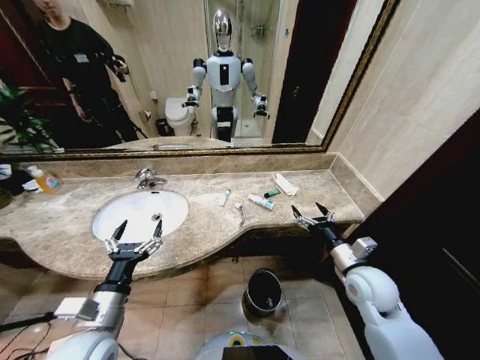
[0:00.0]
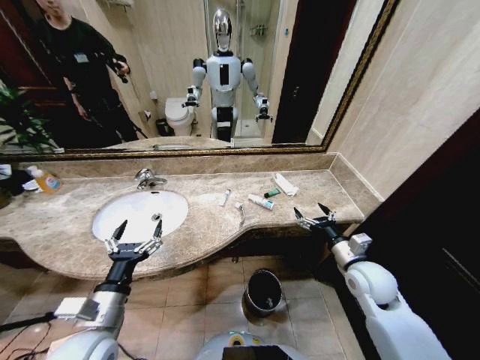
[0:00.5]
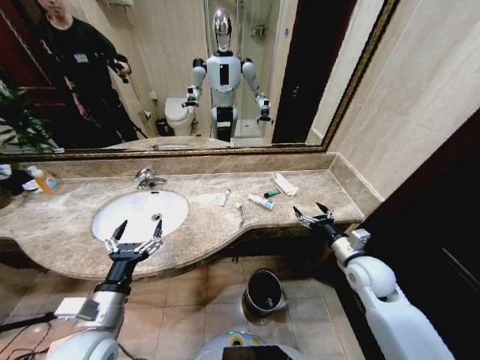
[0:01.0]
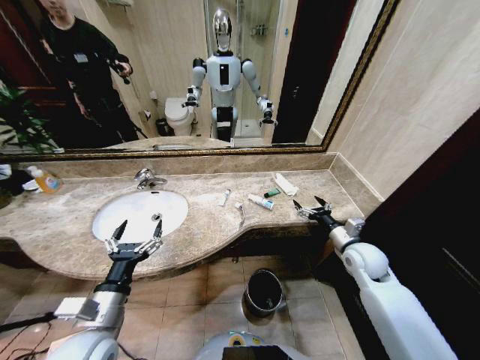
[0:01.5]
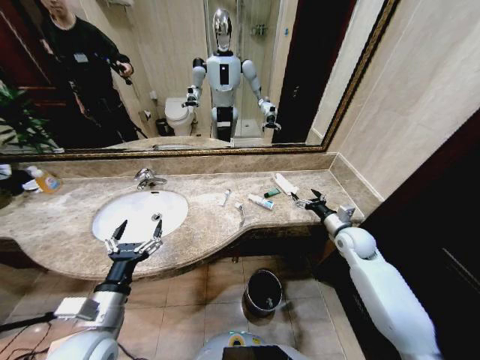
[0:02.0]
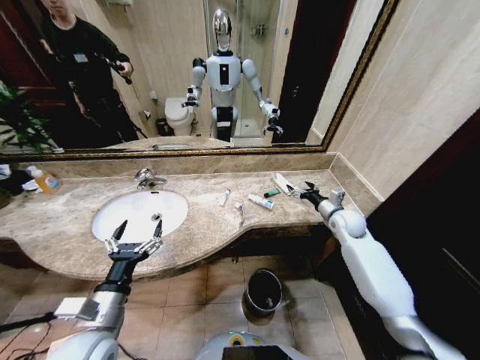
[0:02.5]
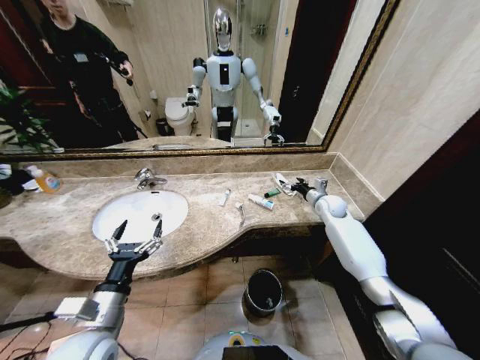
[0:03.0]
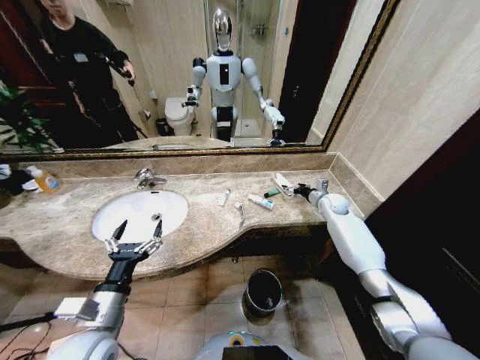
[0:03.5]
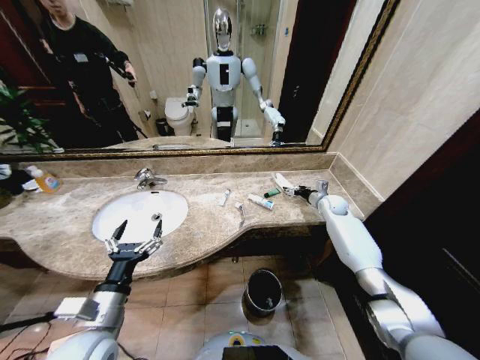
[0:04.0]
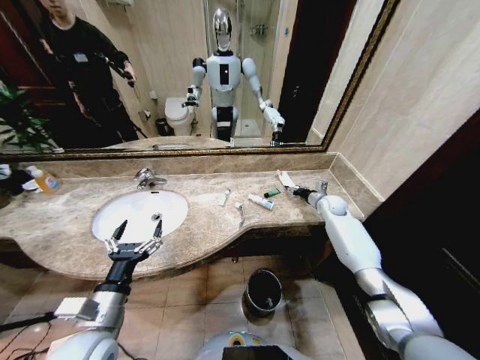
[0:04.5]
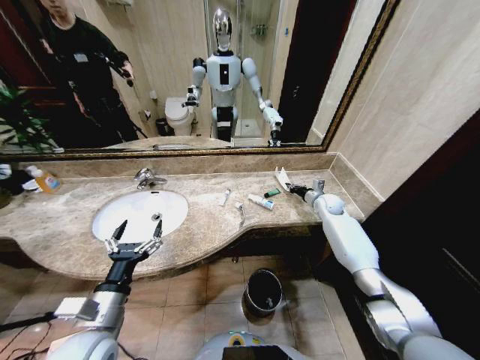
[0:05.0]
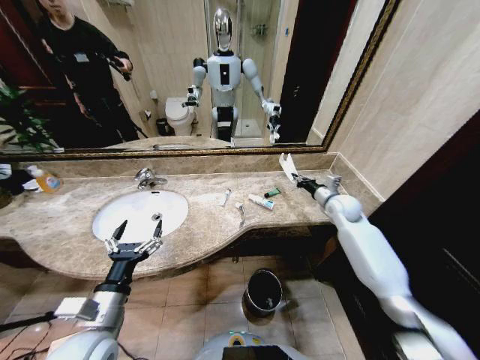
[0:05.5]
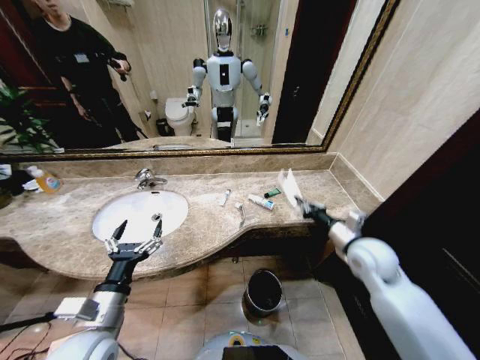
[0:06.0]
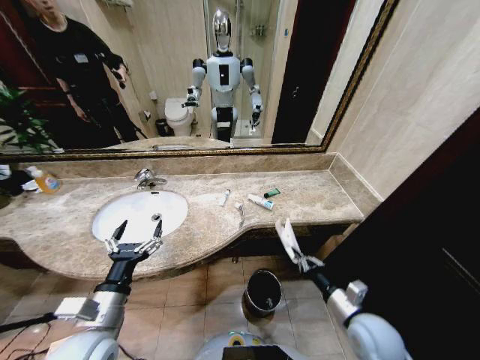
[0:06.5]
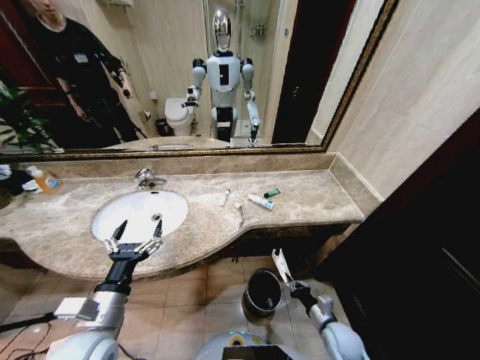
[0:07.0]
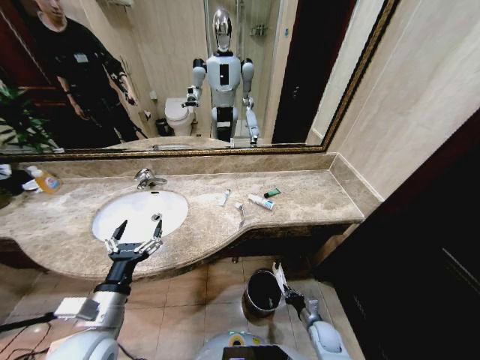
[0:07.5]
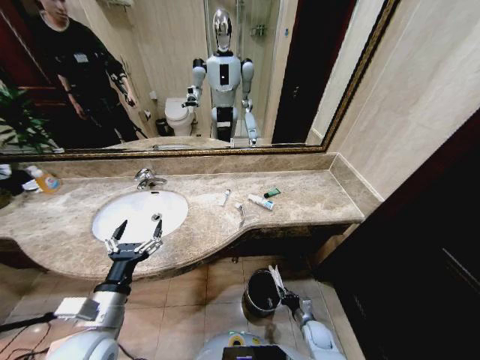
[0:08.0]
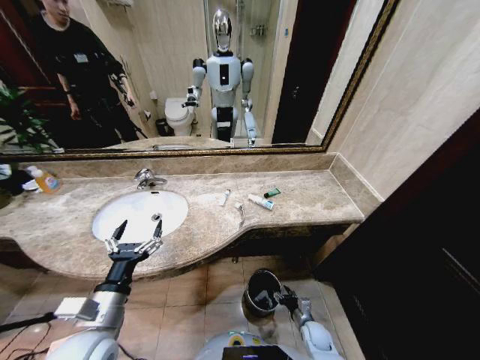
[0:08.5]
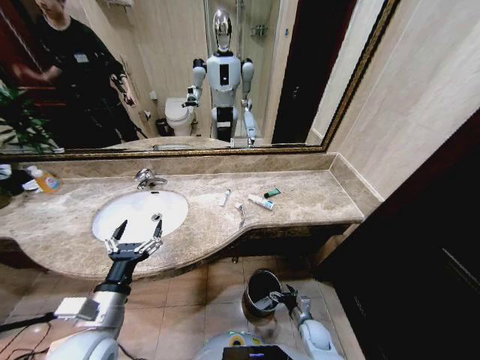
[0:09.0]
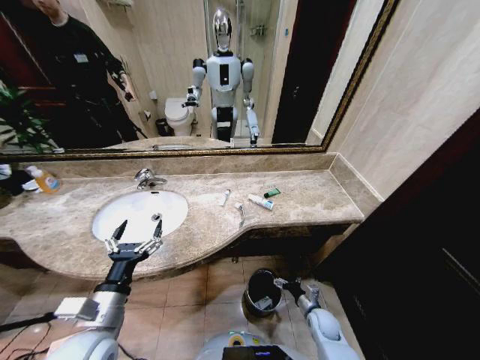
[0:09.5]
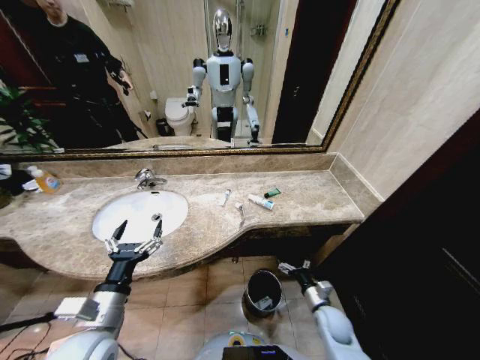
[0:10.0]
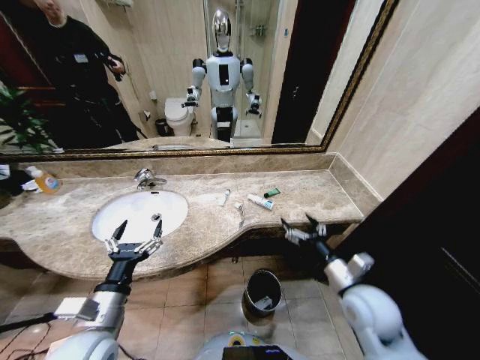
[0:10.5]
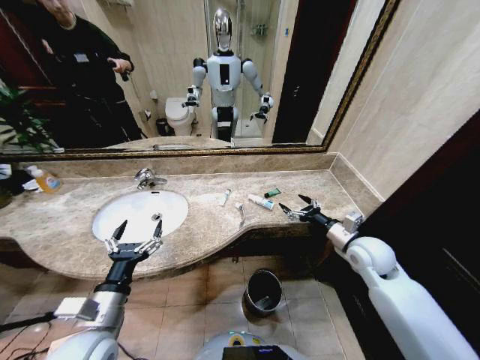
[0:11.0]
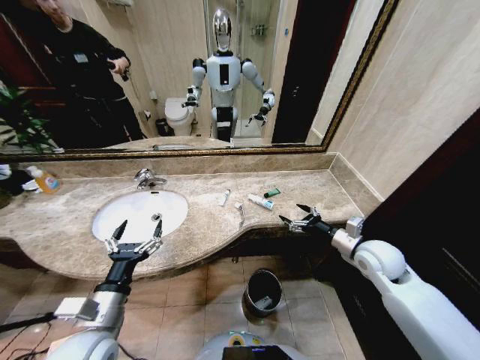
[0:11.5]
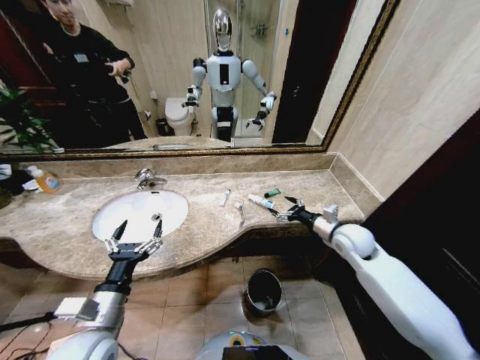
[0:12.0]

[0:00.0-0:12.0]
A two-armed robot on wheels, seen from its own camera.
Task of the whole recording: Pick up the trash from the sink and place it in the trash bin.
0:02.0 to 0:04.0: The right gripper shifts roughly 15 cm forward.
0:04.0 to 0:06.0: The right gripper shifts roughly 25 cm backward, and closes up.
0:06.0 to 0:08.0: The right gripper travels downward by approximately 40 cm.
0:08.0 to 0:10.0: The right gripper goes roughly 15 cm upward, and opens.
0:10.0 to 0:12.0: The right gripper heads upward and forward, covering some 25 cm.

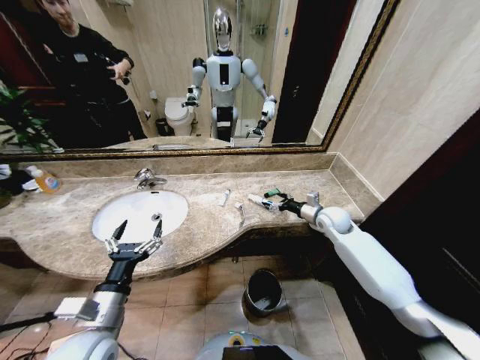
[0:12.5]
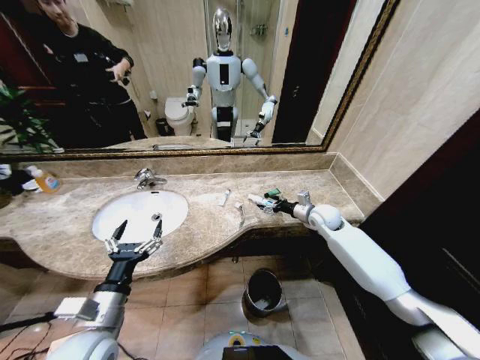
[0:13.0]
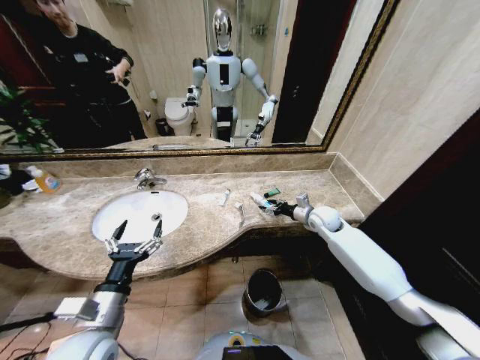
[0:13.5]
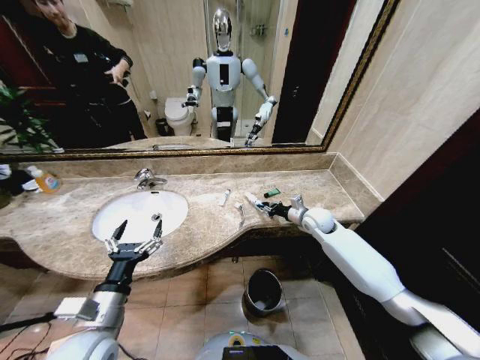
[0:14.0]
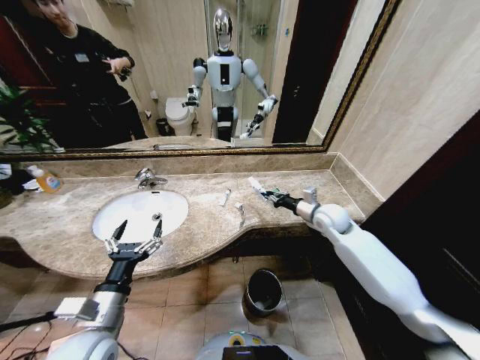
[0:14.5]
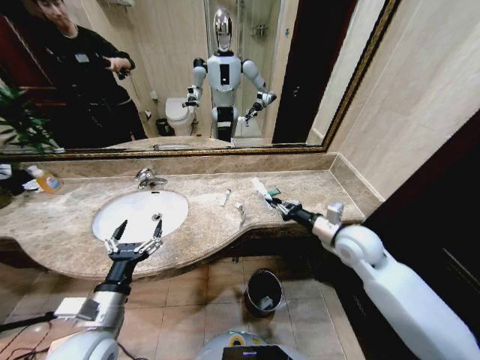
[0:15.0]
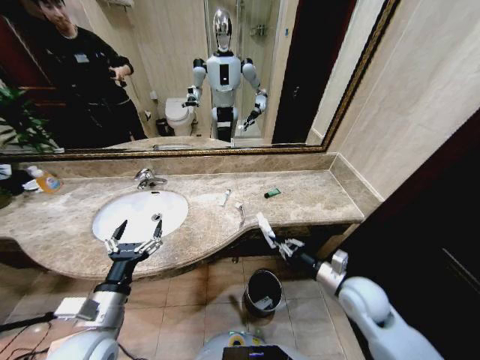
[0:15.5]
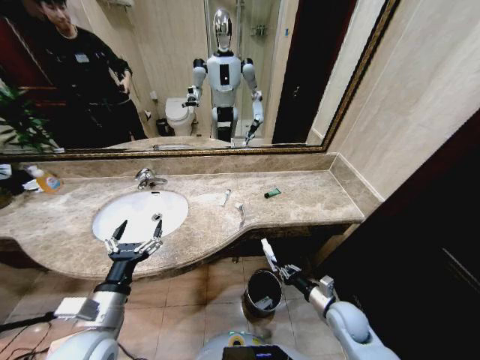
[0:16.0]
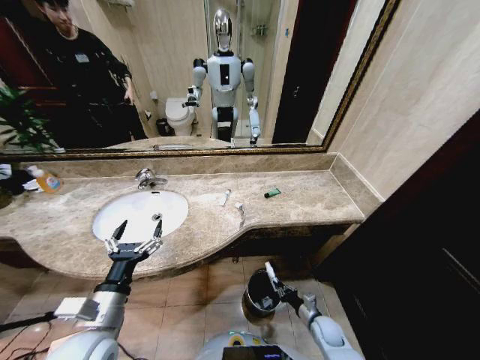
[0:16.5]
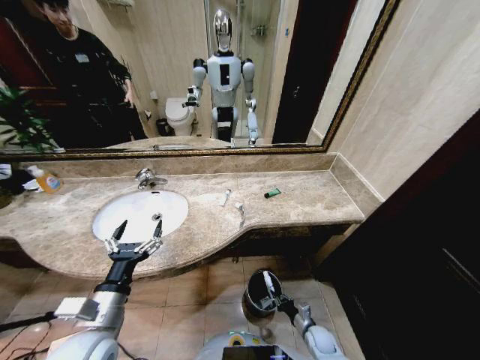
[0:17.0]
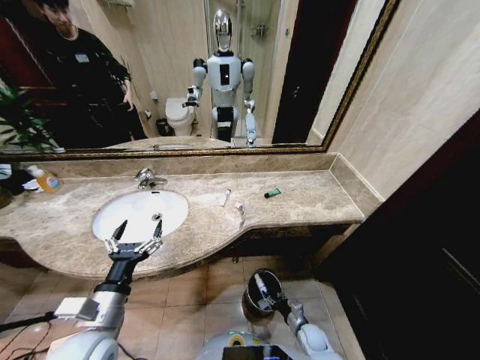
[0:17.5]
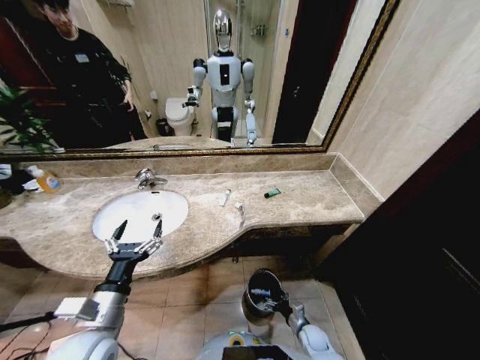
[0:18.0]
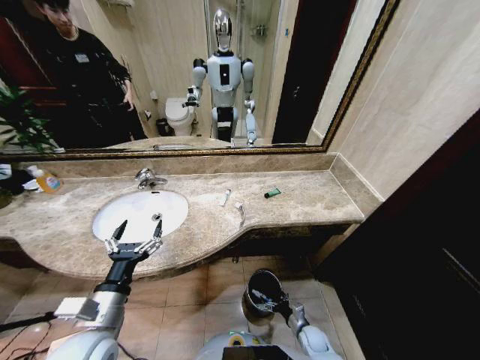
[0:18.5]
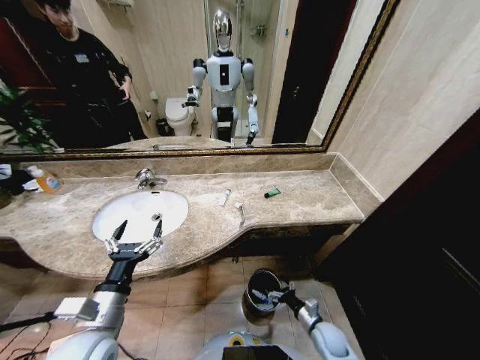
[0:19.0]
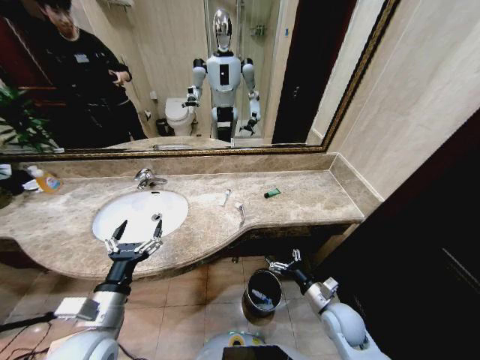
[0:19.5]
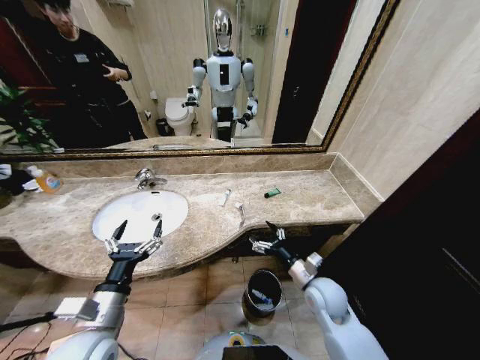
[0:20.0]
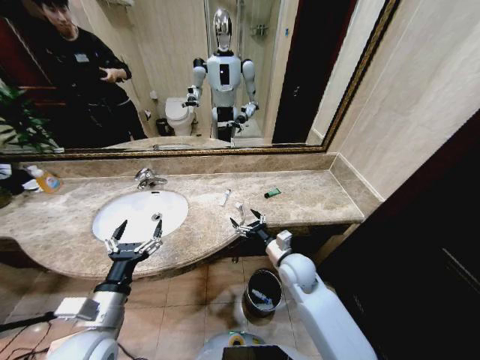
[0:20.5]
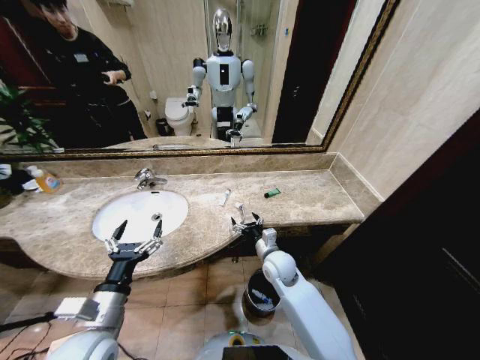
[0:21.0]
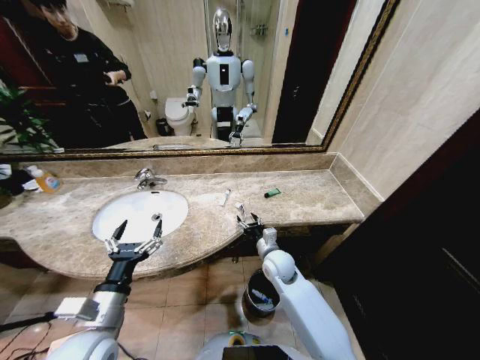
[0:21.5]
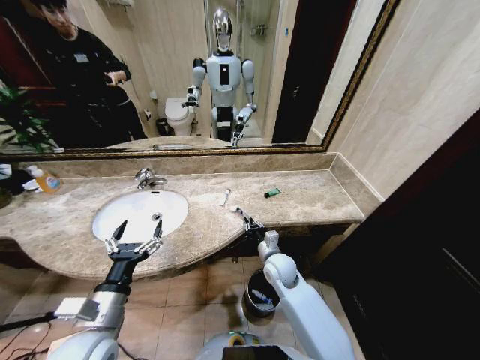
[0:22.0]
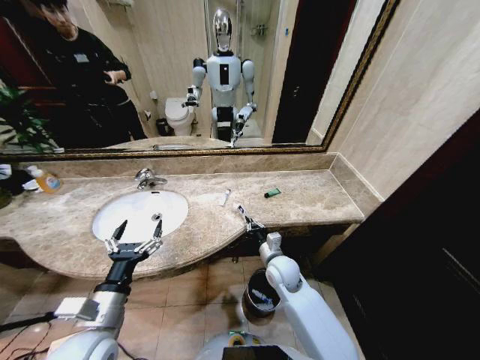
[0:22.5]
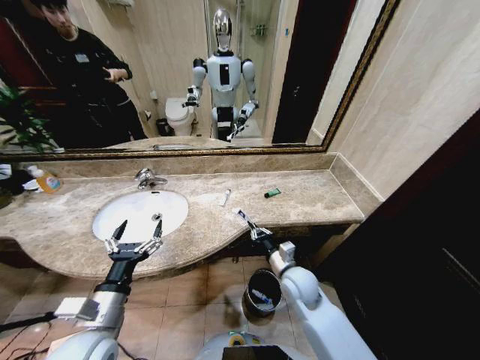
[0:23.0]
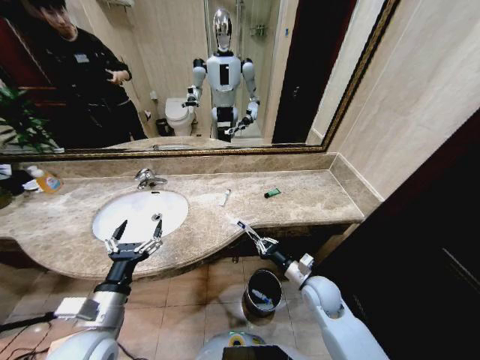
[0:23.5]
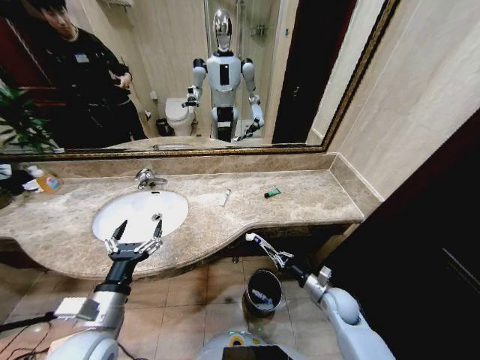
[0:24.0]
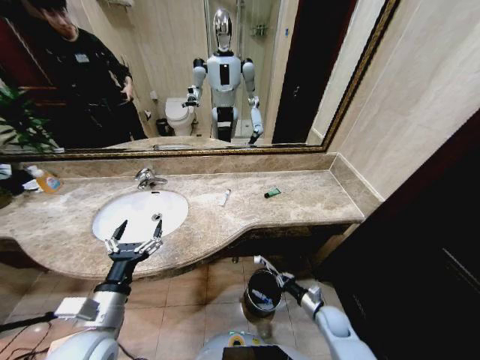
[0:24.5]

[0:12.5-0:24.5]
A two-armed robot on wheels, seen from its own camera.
Task of the whole recording: Pick up the trash from the sink and place it in the trash bin.
0:12.5 to 0:14.5: The right gripper closes up.
0:14.5 to 0:16.5: The right gripper goes some 40 cm downward and backward.
0:16.5 to 0:18.5: The right gripper shifts roughly 5 cm downward, and opens.
0:18.5 to 0:20.5: The right gripper shifts roughly 35 cm upward and forward.
0:20.5 to 0:22.5: The right gripper closes its fingers.
0:22.5 to 0:24.5: The right gripper moves downward, to the right and backward, approximately 30 cm.

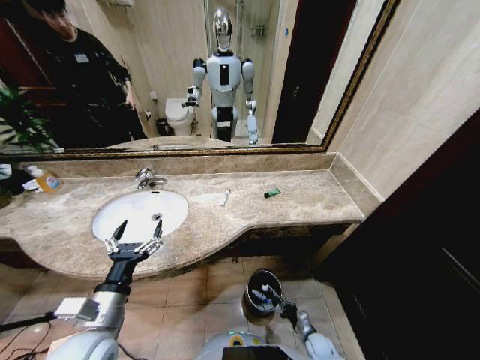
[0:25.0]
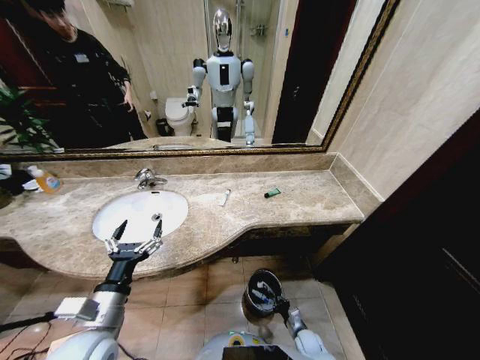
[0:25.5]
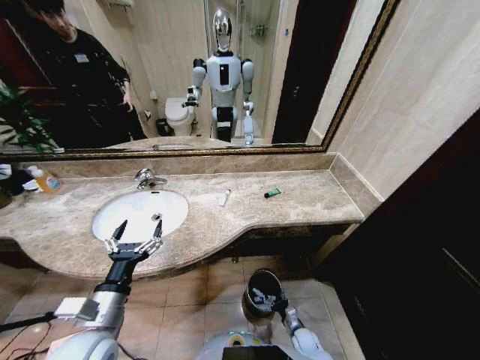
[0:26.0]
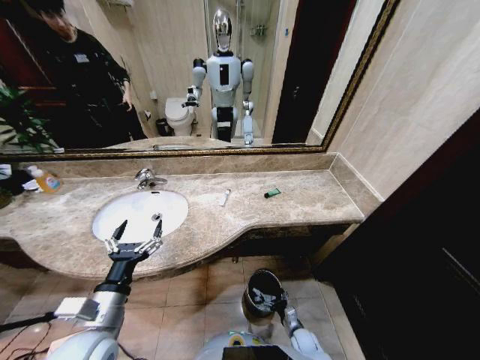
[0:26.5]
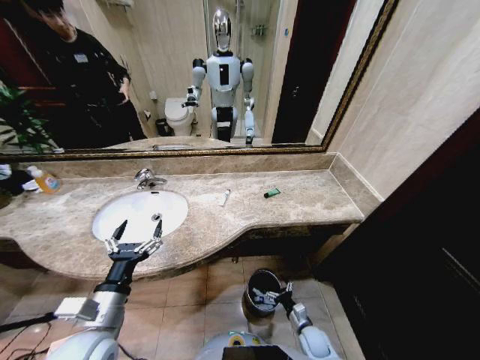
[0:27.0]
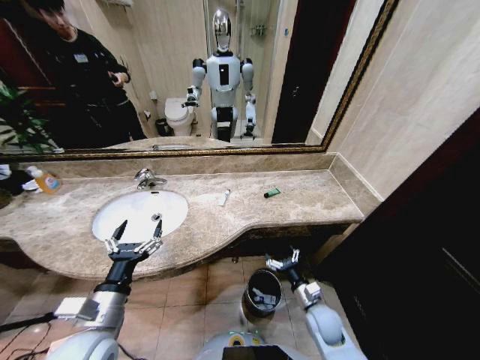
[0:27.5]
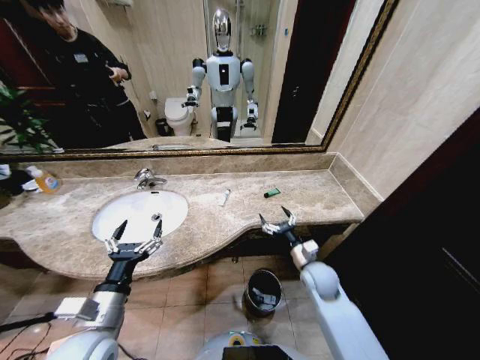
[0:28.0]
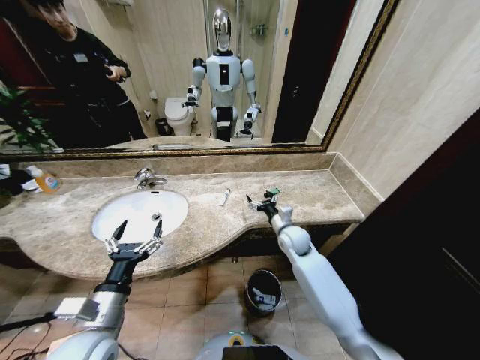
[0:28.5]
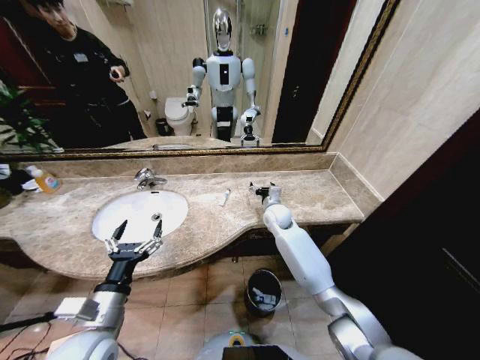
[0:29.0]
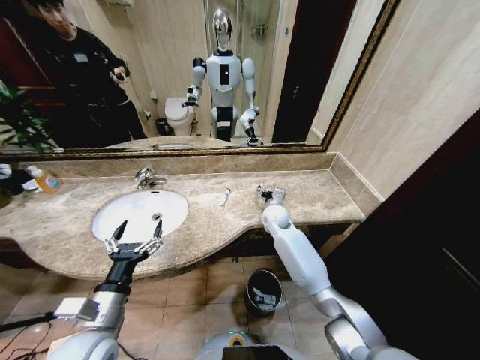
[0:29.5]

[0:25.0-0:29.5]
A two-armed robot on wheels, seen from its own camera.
Task of the whole recording: Pick up the trash from the sink and place it in the trash bin.
0:25.0 to 0:27.0: The right gripper moves upward, roughly 10 cm, and opens.
0:27.0 to 0:29.5: The right gripper goes some 40 cm forward and upward.
